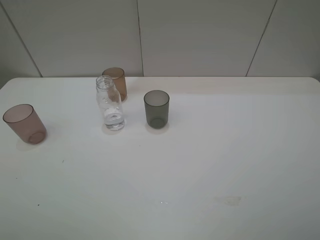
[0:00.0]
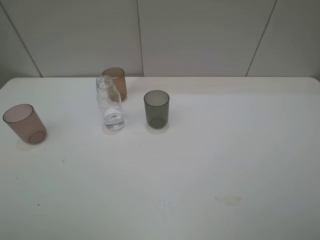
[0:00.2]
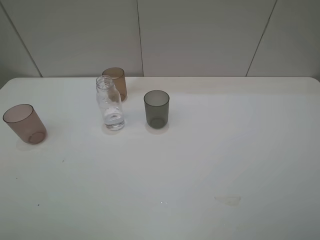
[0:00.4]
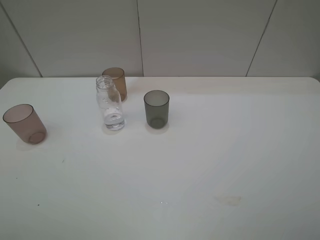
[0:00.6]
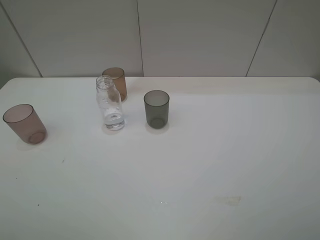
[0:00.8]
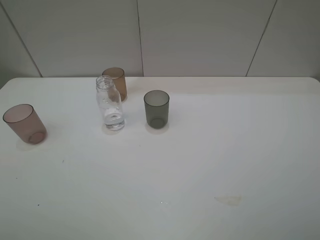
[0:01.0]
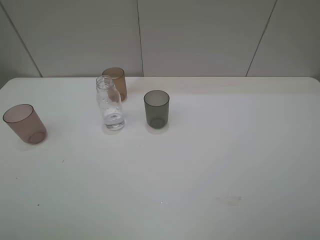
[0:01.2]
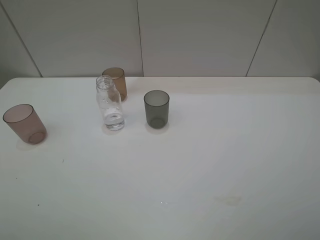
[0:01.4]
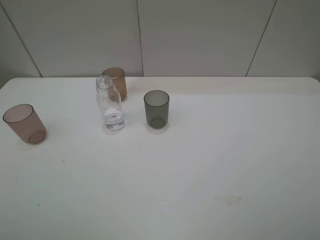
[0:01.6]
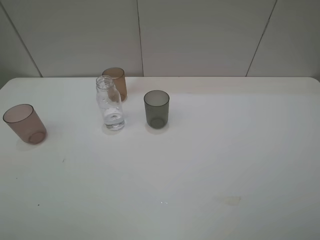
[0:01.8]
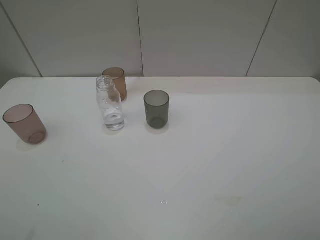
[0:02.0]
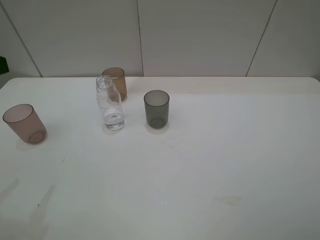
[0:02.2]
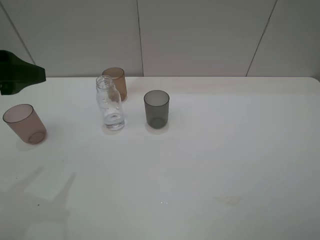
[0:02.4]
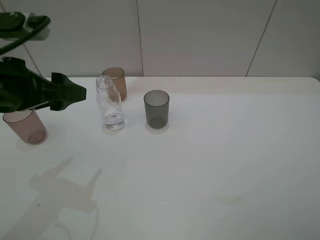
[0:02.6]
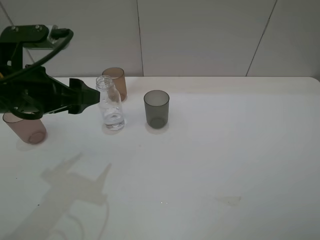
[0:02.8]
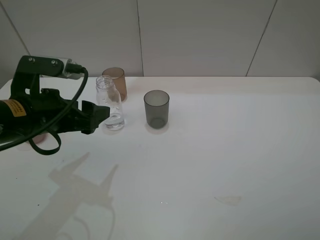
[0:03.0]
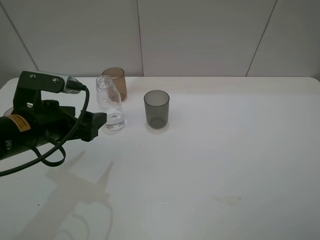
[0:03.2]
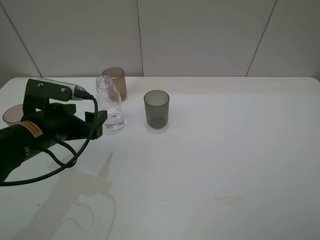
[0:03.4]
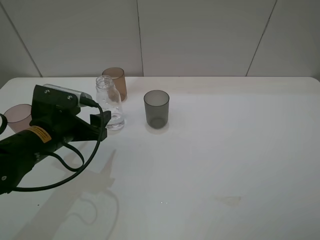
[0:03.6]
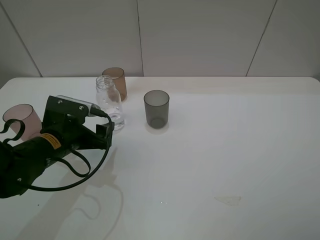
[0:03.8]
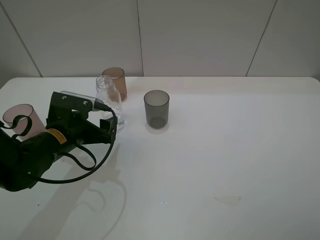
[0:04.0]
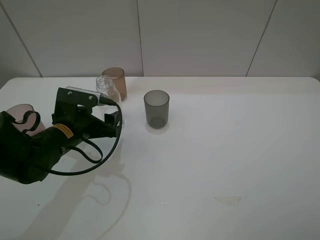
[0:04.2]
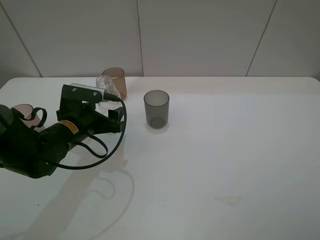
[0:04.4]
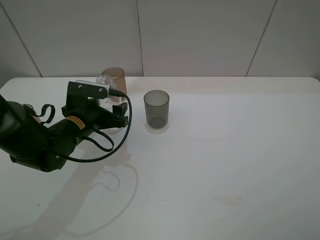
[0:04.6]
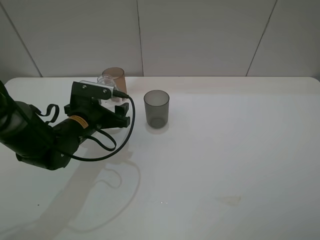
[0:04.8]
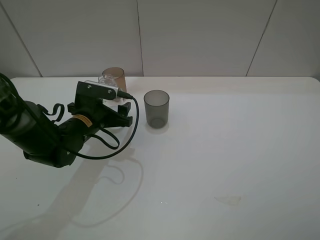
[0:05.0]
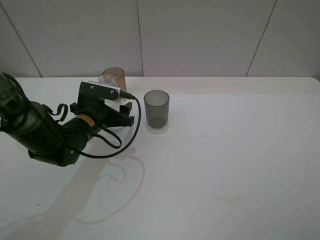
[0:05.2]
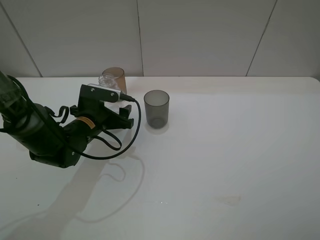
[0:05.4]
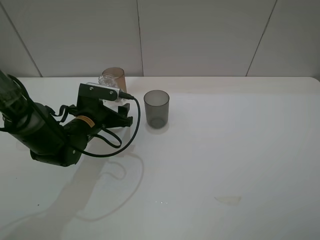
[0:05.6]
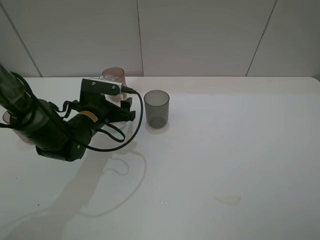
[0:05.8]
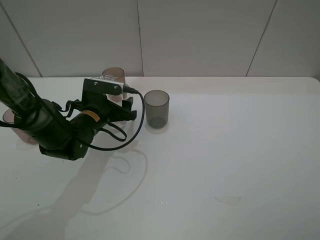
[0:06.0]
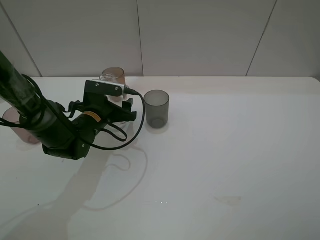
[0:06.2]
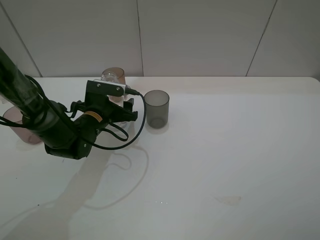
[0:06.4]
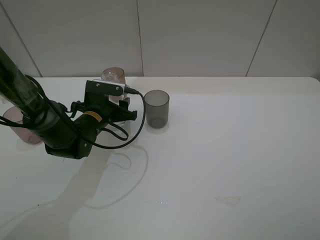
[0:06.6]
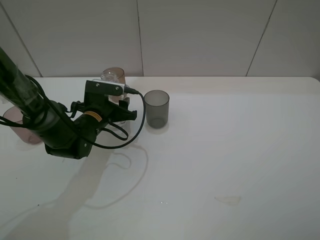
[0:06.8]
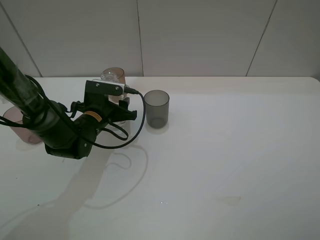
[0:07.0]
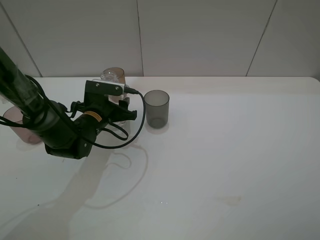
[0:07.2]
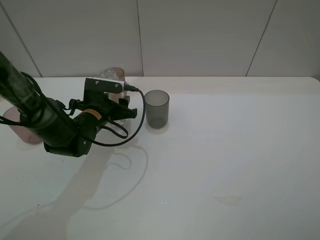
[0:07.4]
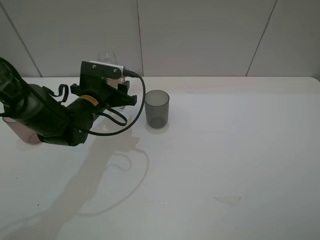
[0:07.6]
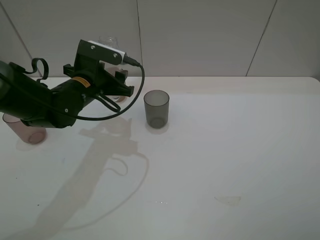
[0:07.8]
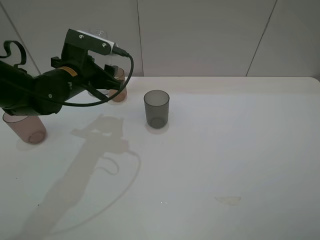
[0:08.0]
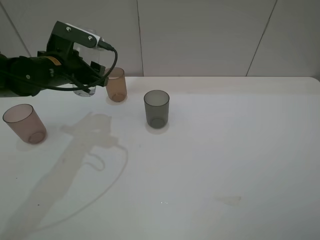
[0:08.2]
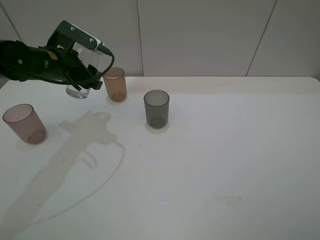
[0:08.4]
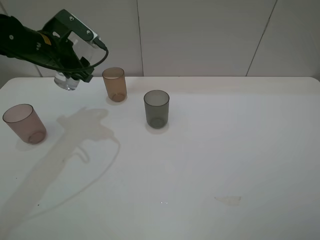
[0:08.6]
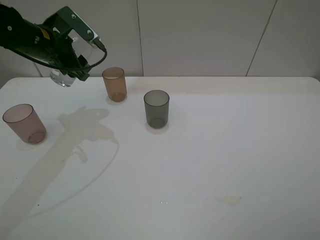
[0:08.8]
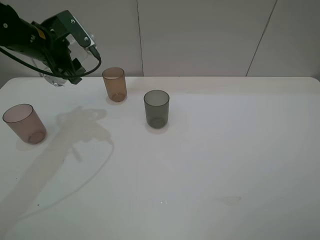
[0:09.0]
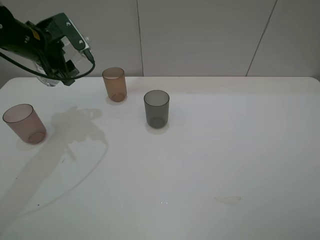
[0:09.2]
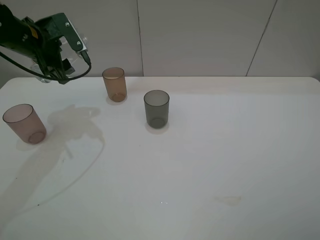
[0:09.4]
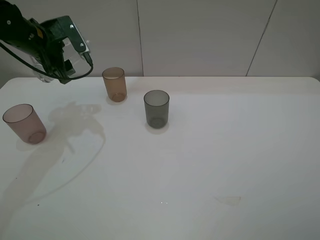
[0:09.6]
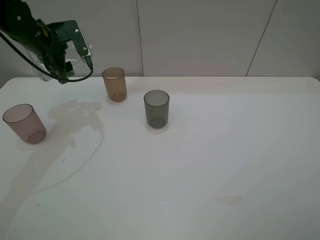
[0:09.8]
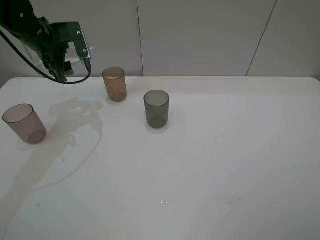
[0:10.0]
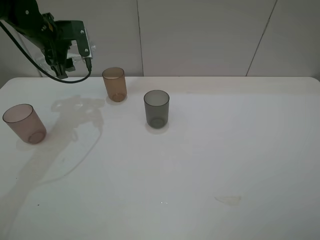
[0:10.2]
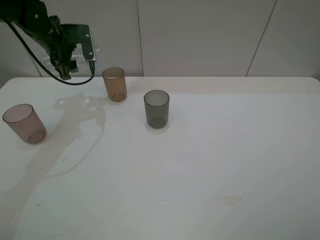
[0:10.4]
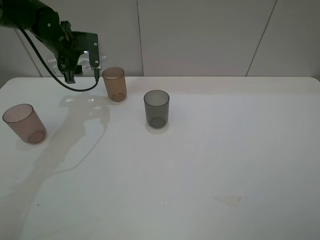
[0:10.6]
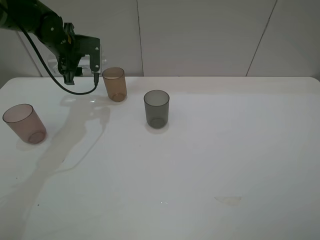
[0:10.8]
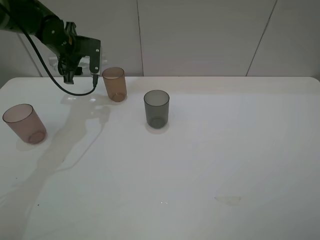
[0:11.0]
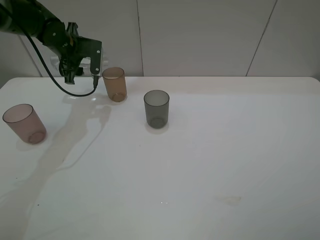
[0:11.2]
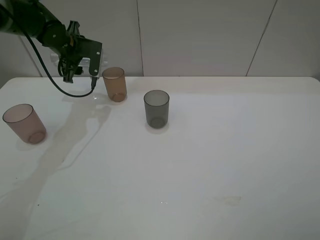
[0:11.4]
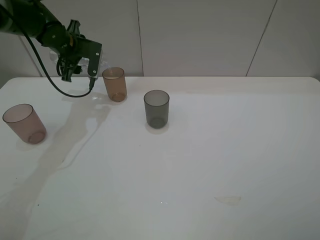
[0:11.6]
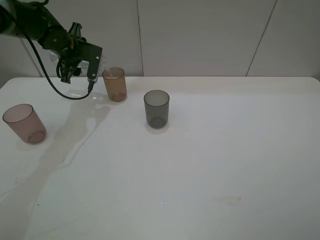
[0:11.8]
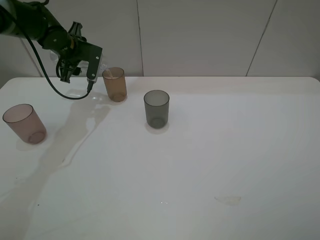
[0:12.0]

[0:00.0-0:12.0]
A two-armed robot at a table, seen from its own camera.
Task of the whole recording: pick up the bottle filled with water and pour water into the middle cup of the three cups.
Step, 0:00.0 to 0:05.2: Grasp the transparent bottle with the left gripper.
Step, 0:05.4 to 0:10.2: Pour water from transparent bottle to brown cup with the left gripper.
0:01.6 to 0:03.0: The left gripper moves forward, to the right and downward, roughly 25 cm.
0:03.0 to 0:04.4: The left gripper is displaced downward and forward by some 10 cm.
0:04.4 to 0:06.0: The left gripper ends up some 5 cm from where it was.
0:06.0 to 0:07.6: The left gripper closes up.
0:07.6 to 0:09.0: The left gripper goes about 15 cm upward, to the left and forward.
0:09.0 to 0:10.4: The left gripper is displaced forward by some 5 cm.

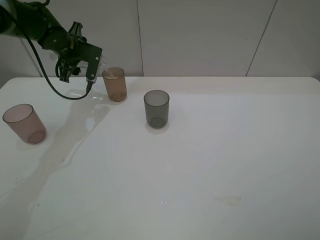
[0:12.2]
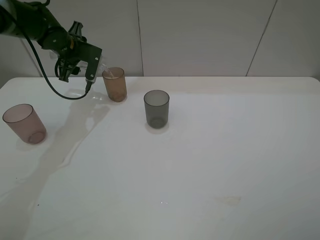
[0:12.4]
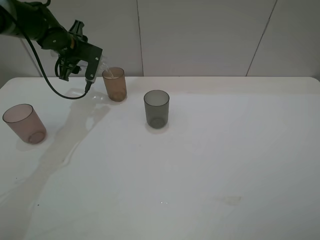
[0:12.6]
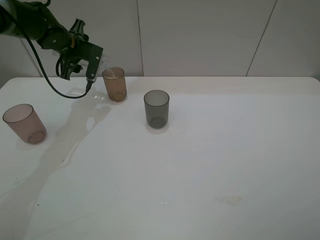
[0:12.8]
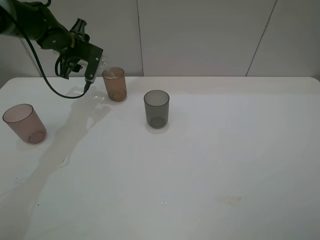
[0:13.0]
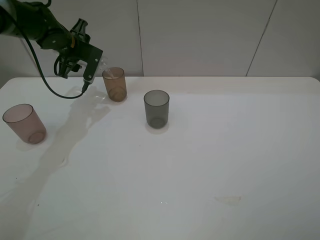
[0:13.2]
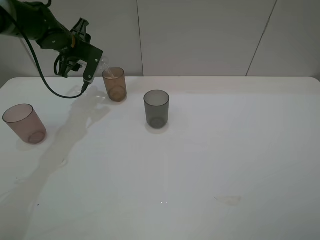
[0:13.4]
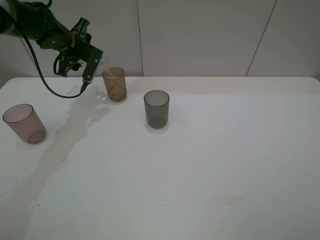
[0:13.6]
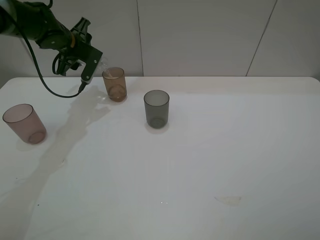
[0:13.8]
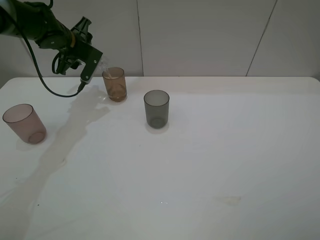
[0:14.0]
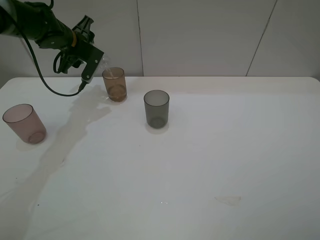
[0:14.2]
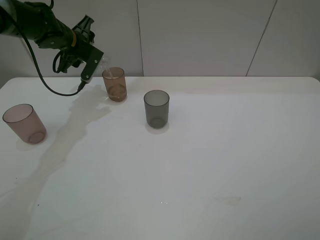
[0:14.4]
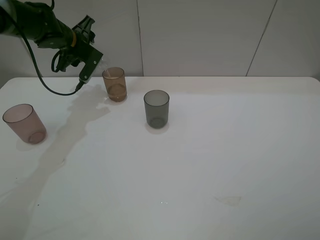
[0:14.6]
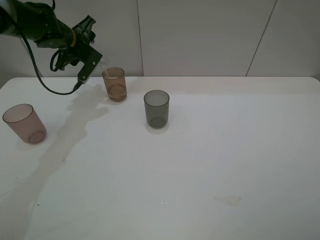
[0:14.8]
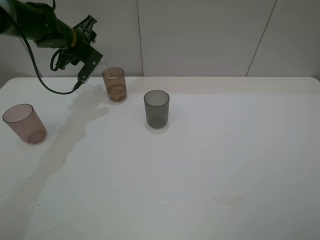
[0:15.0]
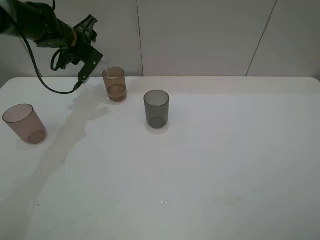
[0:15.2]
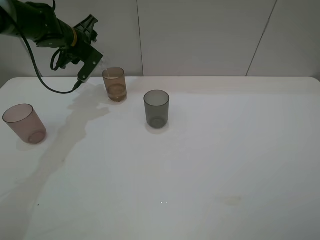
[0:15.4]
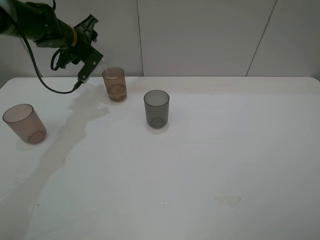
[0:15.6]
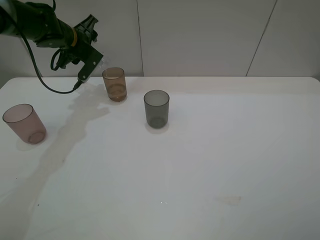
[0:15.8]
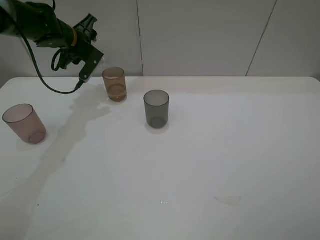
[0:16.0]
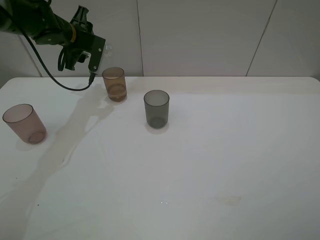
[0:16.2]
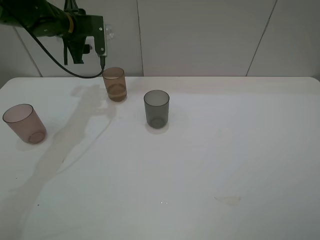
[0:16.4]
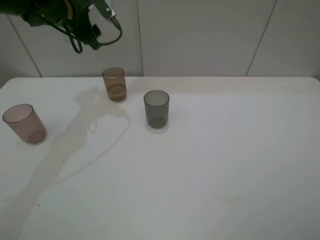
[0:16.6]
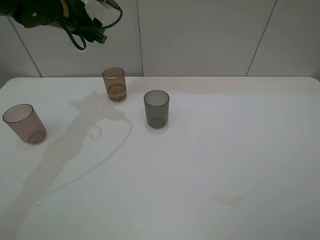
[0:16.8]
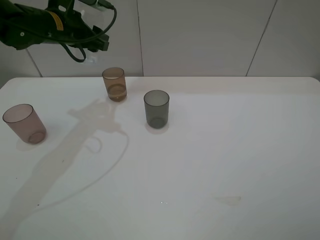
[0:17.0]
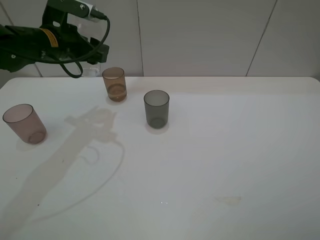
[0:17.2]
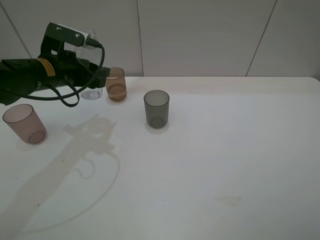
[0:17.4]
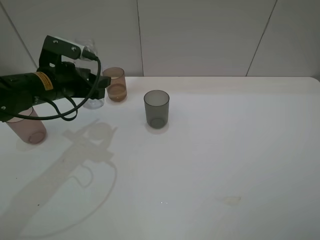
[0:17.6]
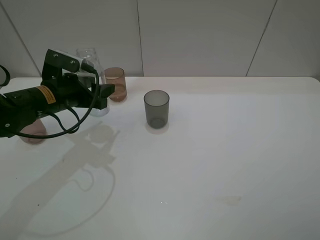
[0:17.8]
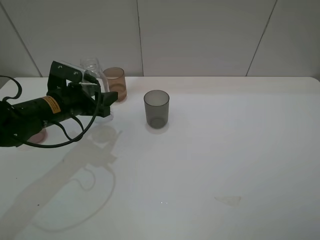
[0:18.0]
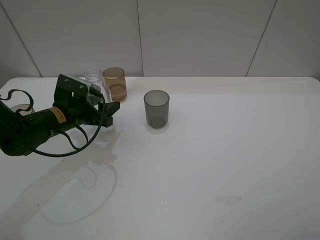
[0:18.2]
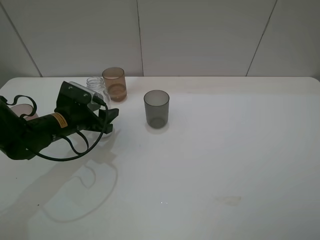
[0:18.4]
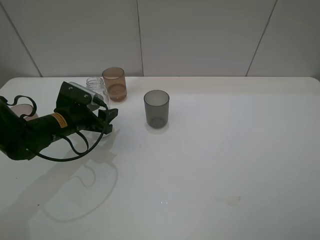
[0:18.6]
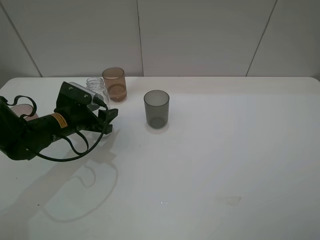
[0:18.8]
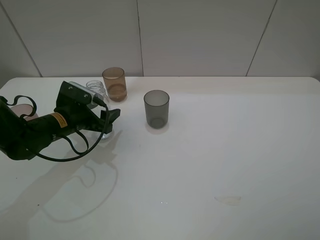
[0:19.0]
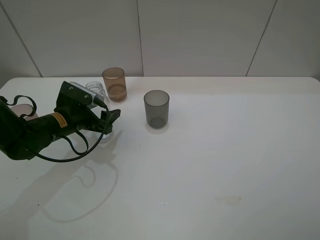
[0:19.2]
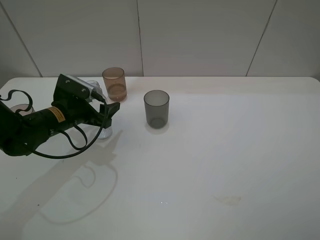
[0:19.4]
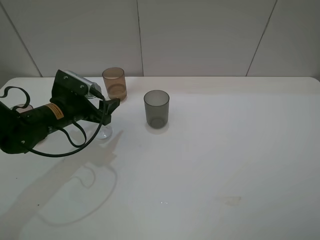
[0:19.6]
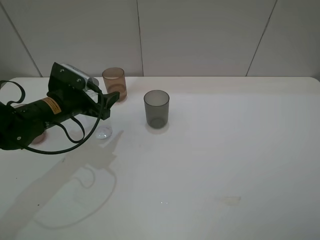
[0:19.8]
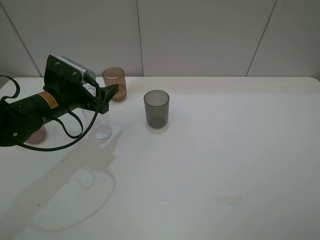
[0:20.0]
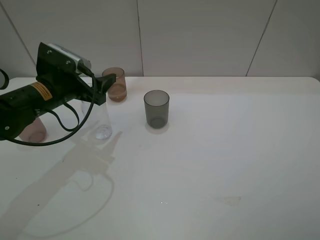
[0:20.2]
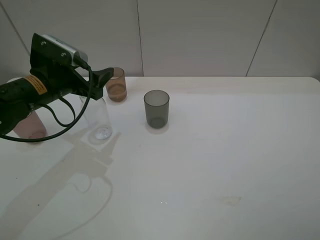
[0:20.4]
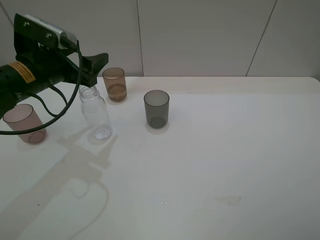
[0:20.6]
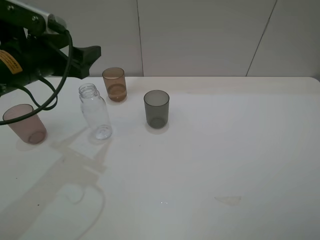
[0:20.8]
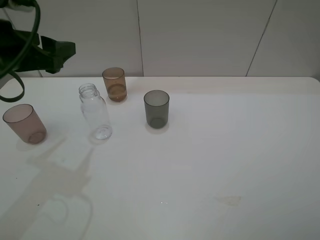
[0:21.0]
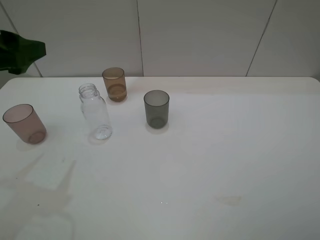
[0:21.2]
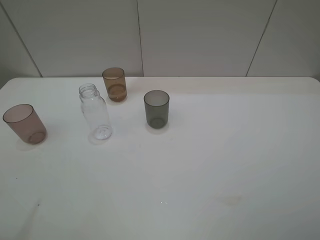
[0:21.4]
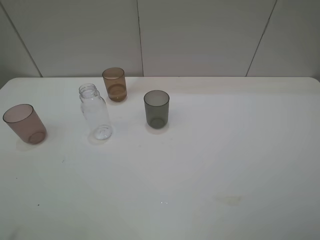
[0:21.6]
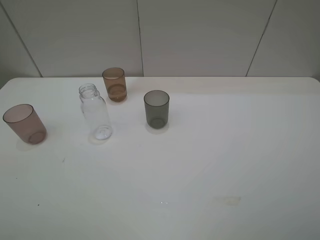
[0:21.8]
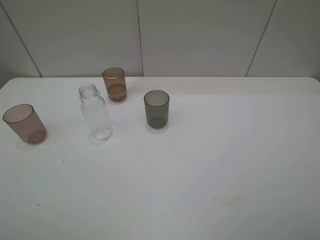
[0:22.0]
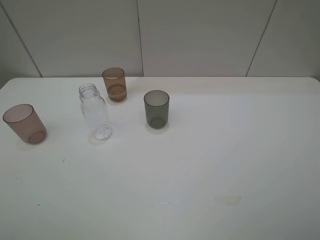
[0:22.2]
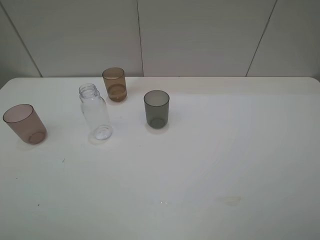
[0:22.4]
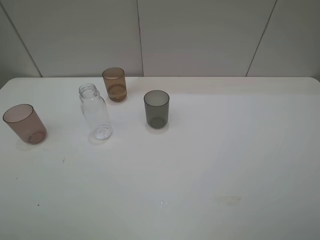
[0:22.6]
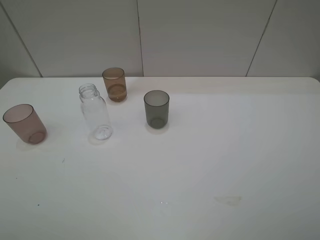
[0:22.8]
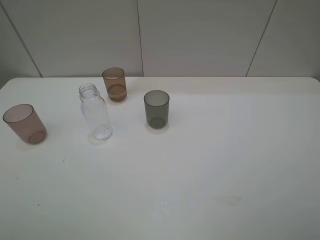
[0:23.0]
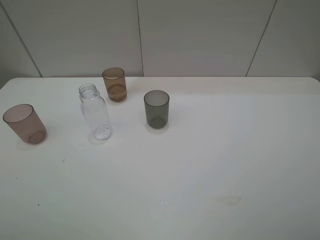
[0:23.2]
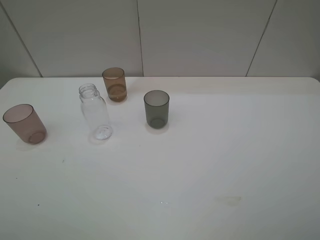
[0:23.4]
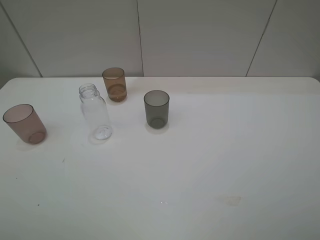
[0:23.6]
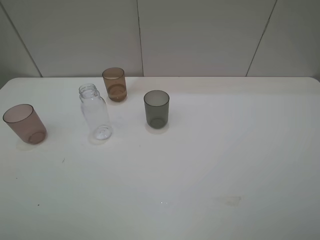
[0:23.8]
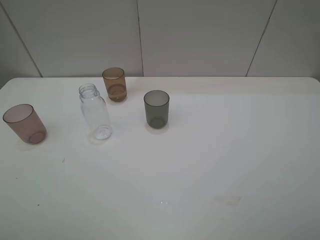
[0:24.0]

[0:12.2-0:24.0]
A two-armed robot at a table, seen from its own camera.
Task of the whole recording: pick up the bottle filled with water and pour water into the middle cup of the three cups.
Step, 0:12.2 to 0:20.4: Place the transparent bottle with the left gripper.
0:12.2 to 0:13.6: The grippers make only small movements.
0:13.6 to 0:15.2: There are only small adjustments of the grippers.
0:15.2 to 0:16.6: The left gripper goes approximately 5 cm upward.
0:16.6 to 0:18.2: The left gripper goes some 25 cm downward and backward.
0:18.2 to 0:19.6: The left gripper opens up.
0:19.6 to 0:21.0: The left gripper travels upward by about 15 cm.
0:21.0 to 0:22.6: The left gripper travels backward by roughly 25 cm.
